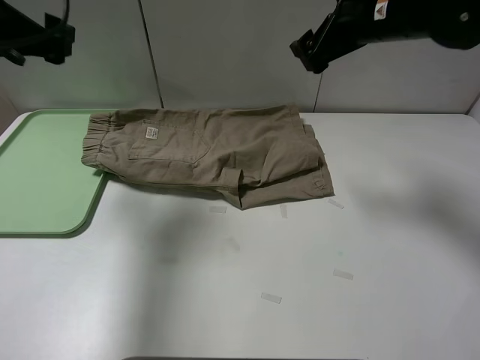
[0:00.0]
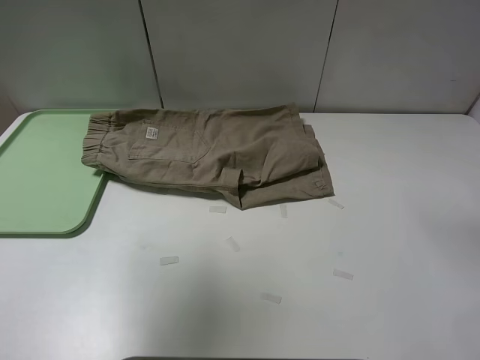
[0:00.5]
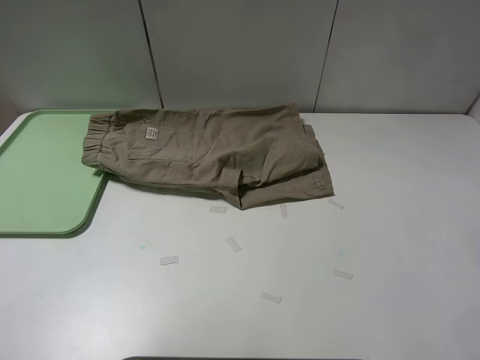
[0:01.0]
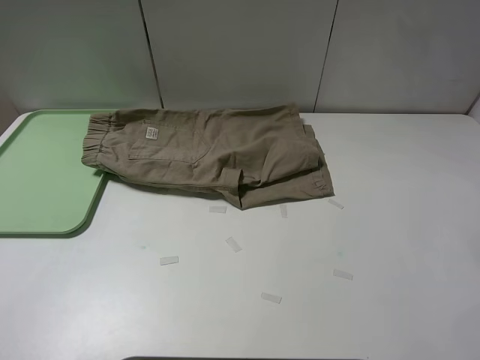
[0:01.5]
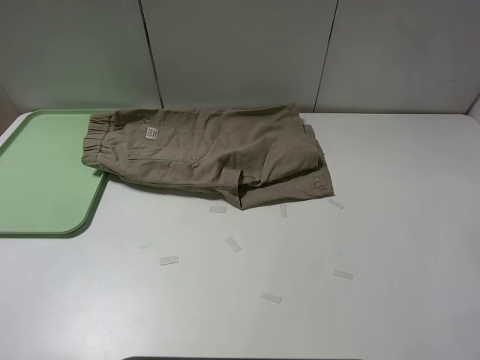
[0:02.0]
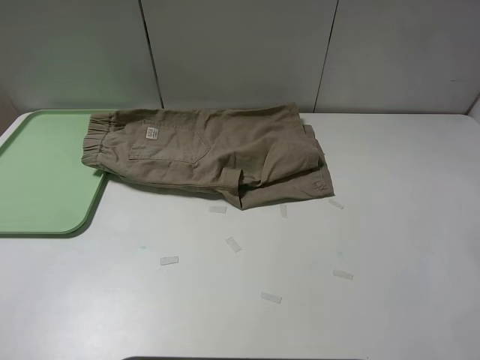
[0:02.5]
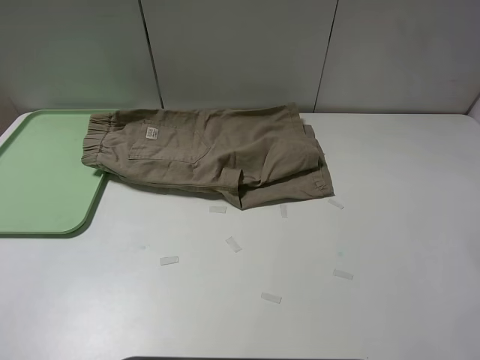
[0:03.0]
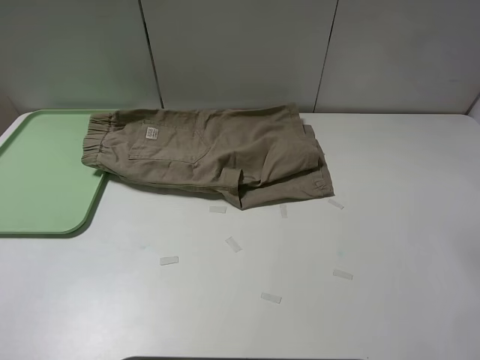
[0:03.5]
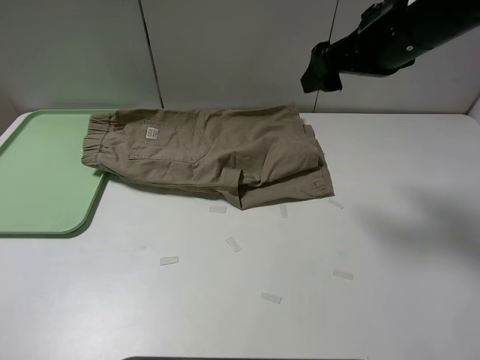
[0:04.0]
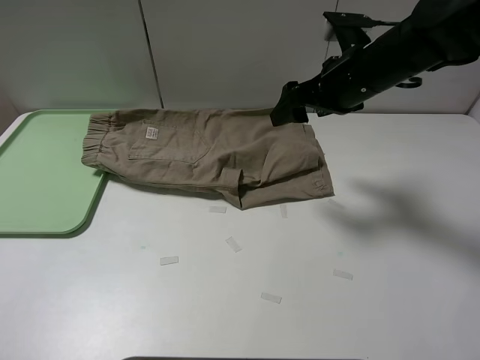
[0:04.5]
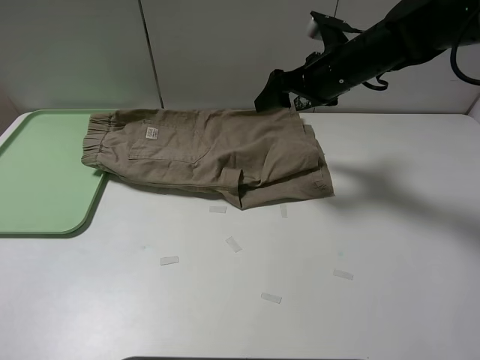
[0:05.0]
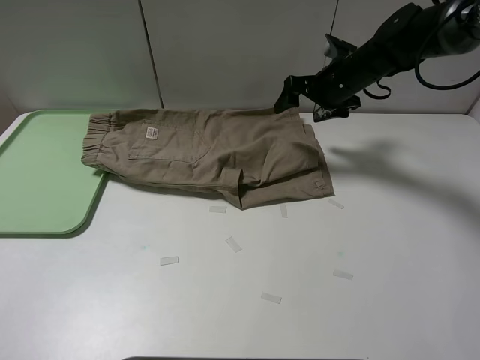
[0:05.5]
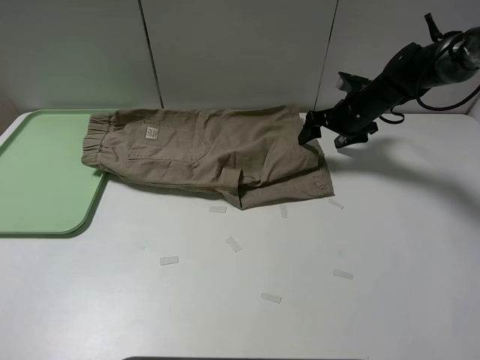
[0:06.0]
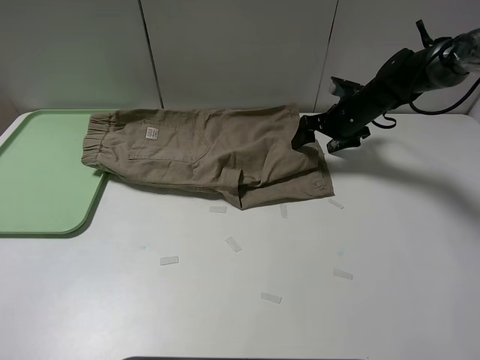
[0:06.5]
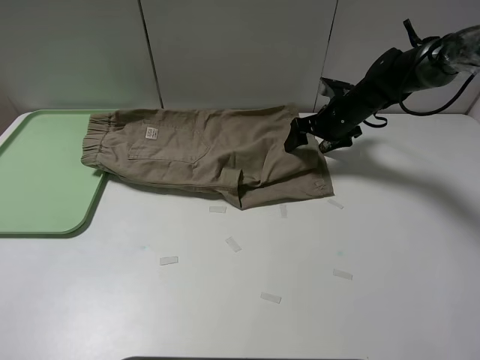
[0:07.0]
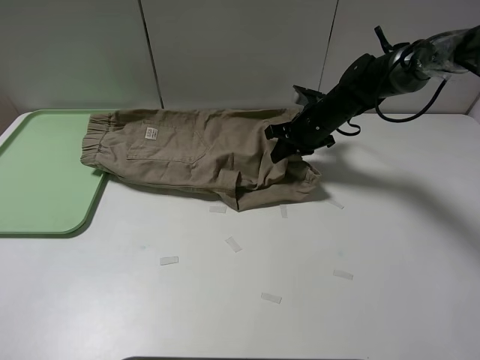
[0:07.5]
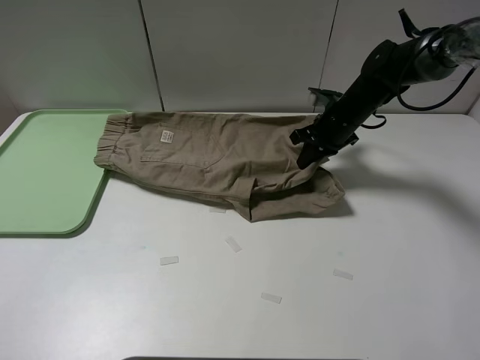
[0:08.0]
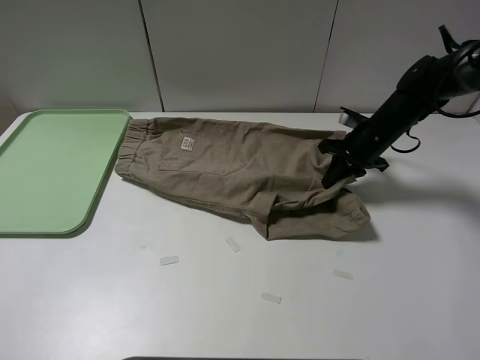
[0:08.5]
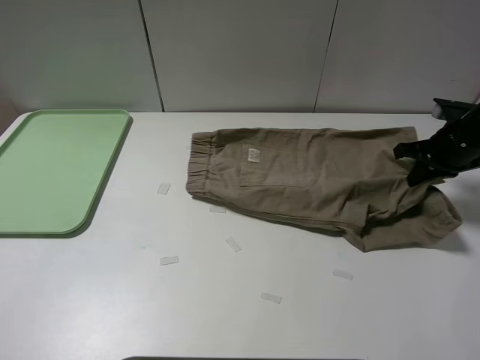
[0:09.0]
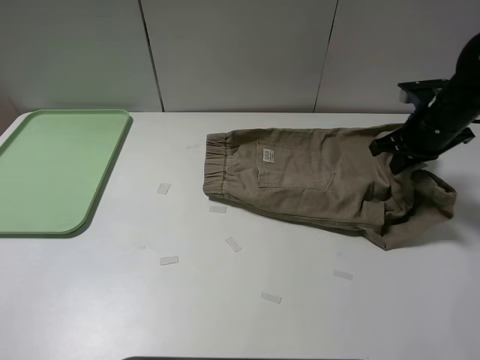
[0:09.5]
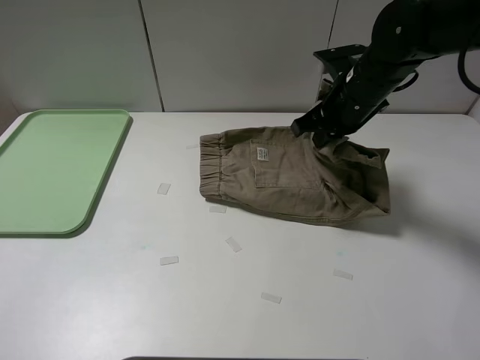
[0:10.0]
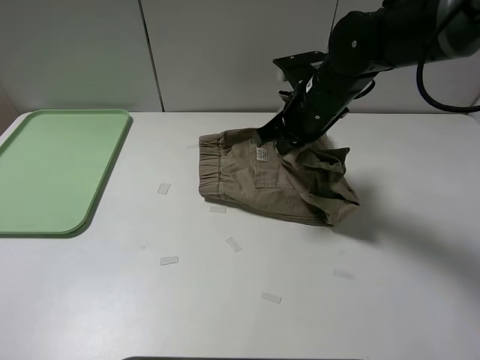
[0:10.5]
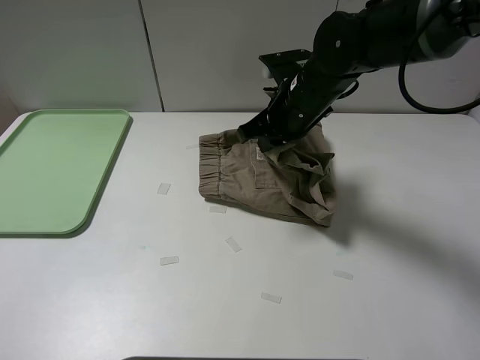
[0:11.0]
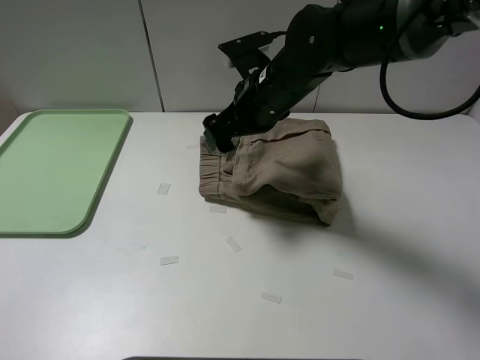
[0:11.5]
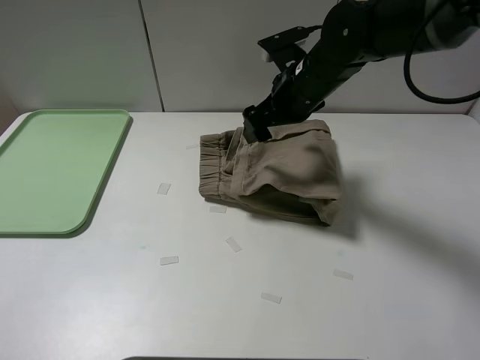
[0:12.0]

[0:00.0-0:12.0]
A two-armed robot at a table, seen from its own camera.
Task of the whole recording: fold the khaki jeans in half with two grippers, then fold them in half again, and use the left claw to place the folded fold khaki jeans on the tray.
Step, 0:00.0 to 0:07.0: Grasp the khaki trousers with the right gripper.
Step, 0:07.5 to 0:11.5: Fold the khaki trousers from right to left with the right gripper.
0:00.0 to 0:02.0: The left gripper shifts some 25 cm backward. The right gripper travels upward and backward by some 20 cm.
0:02.0 to 0:04.0: The right gripper travels downward and forward by about 15 cm.
0:04.0 to 0:06.0: The right gripper shifts approximately 25 cm downward and forward.
0:06.0 to 0:08.0: The right gripper closes up.
0:08.0 to 0:10.0: The right gripper goes about 10 cm upward and backward, and moves approximately 15 cm to the right and comes back.
0:10.0 to 0:12.0: The right gripper opens.

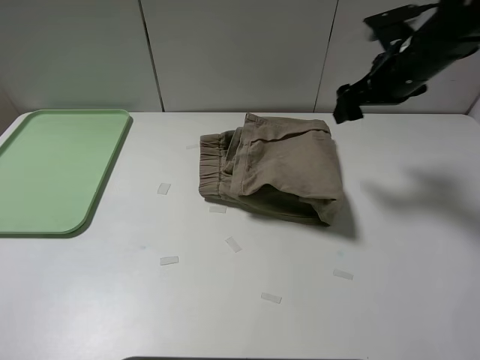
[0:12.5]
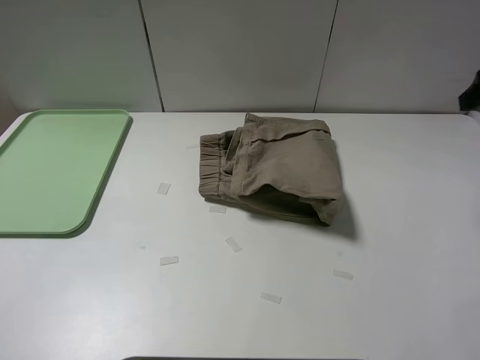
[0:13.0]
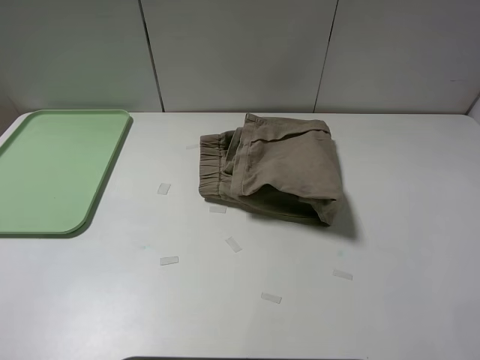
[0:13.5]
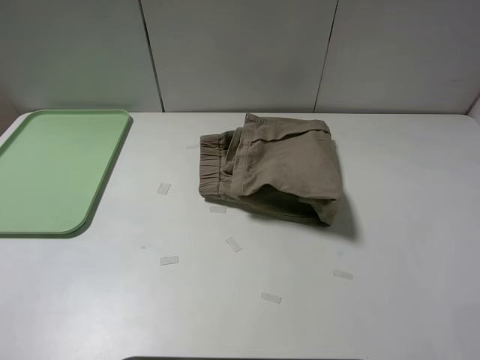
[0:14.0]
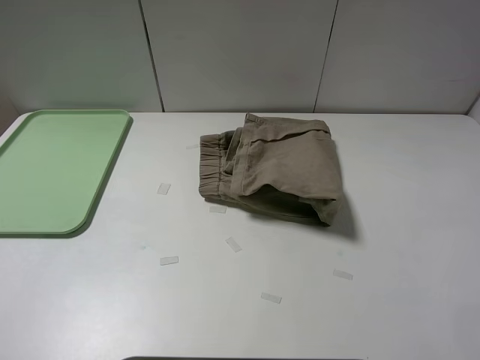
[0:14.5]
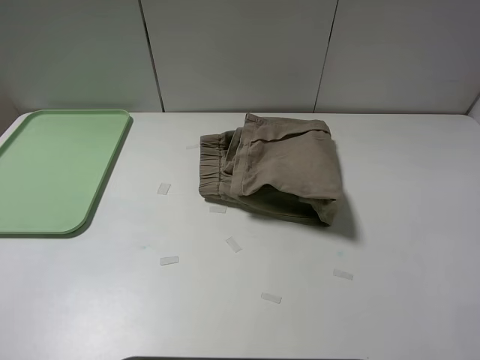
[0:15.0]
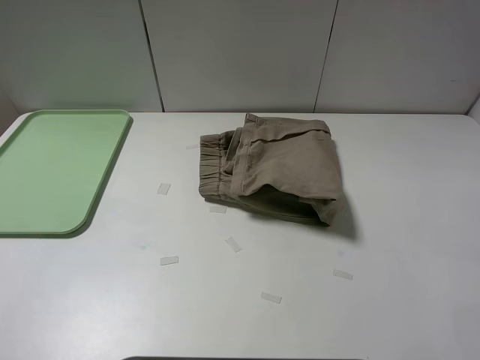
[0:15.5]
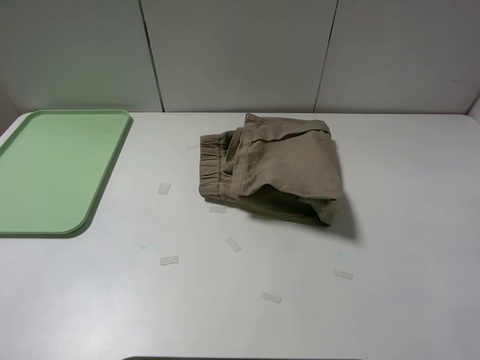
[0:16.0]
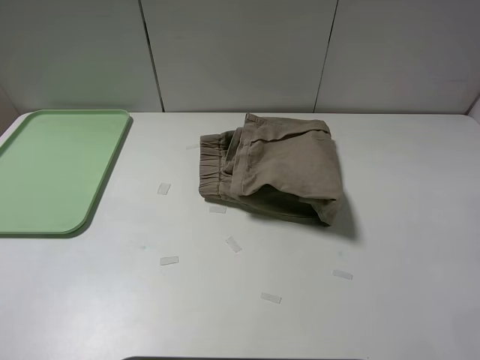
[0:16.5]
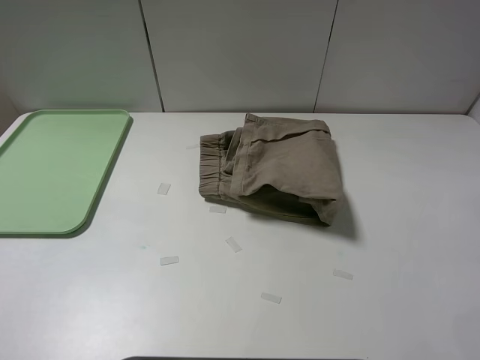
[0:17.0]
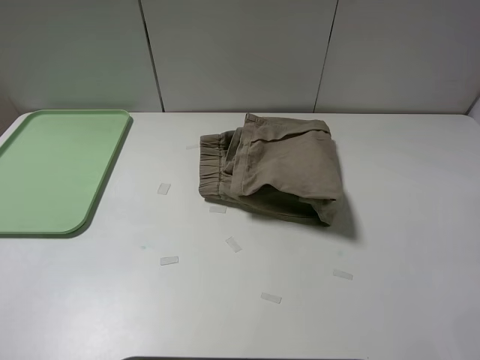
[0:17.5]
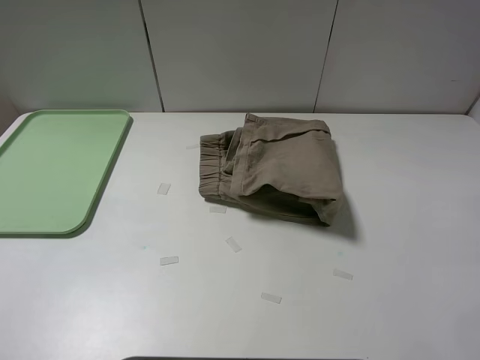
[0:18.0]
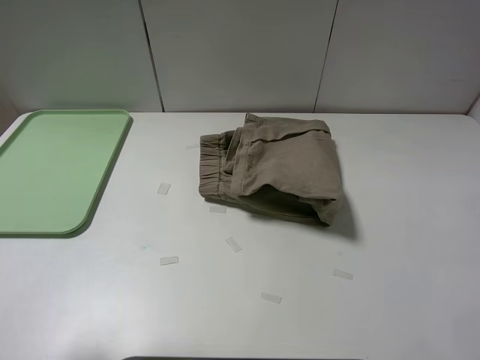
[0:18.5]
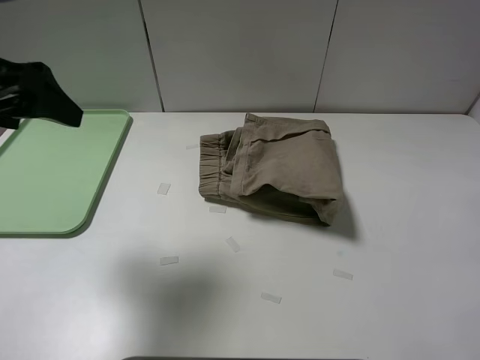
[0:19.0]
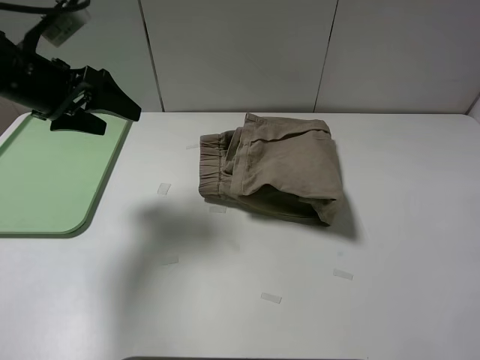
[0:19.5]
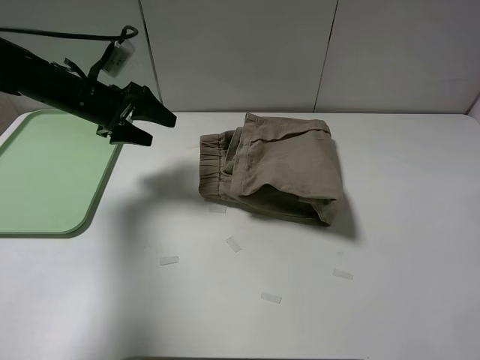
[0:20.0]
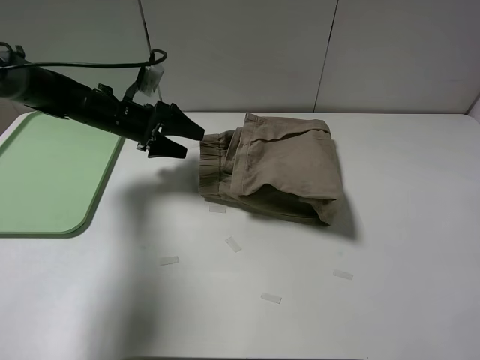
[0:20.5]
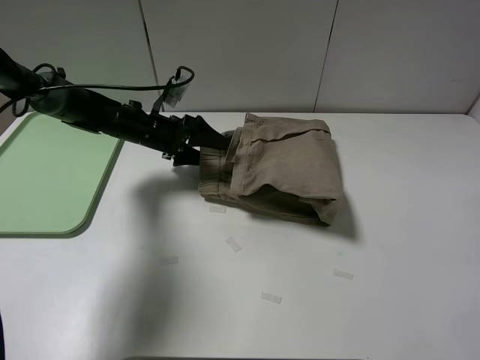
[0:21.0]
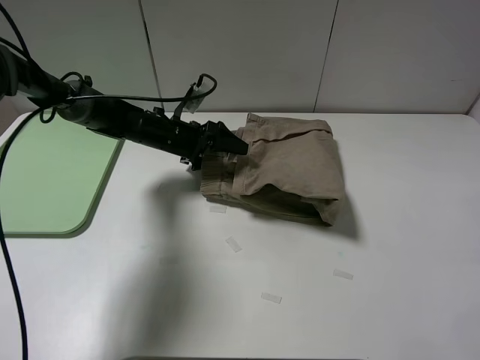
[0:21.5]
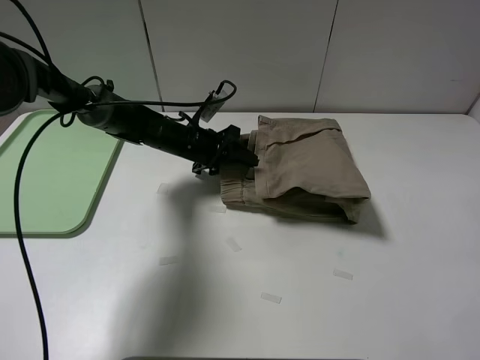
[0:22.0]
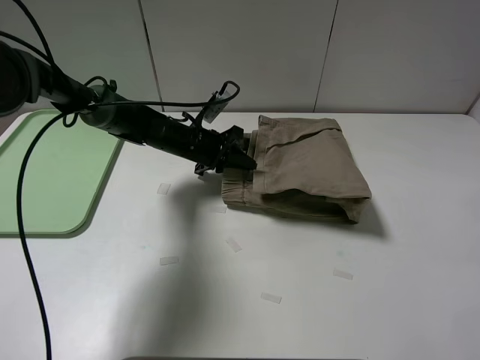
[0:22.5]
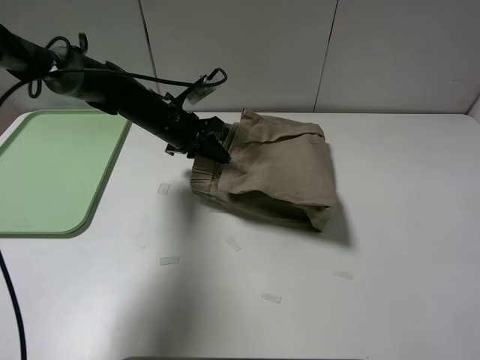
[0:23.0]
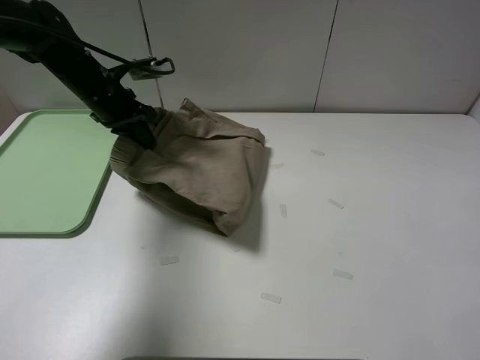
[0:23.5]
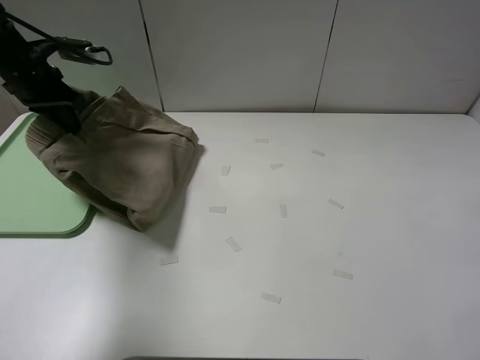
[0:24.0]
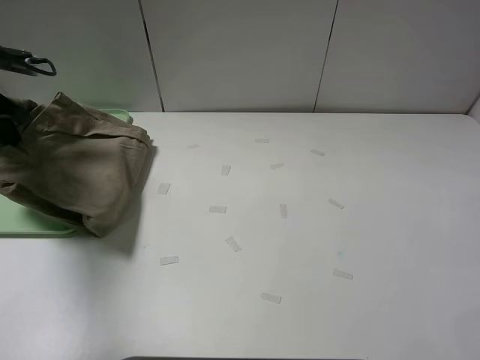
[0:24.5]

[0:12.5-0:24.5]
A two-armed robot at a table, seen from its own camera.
Task of the whole recording: fold the khaki jeans in half with two grippers, then fold them in half again, and use the left claw to place the folded fold khaki jeans on the tray.
Step, 0:12.5 to 0:22.0: Grasp the khaki trousers with the left gripper.
0:12.5 to 0:14.5: The right gripper moves backward, approximately 35 cm.
0:18.5 to 0:20.5: The left gripper is displaced forward and downward by about 40 cm.
0:20.5 to 0:22.5: The left gripper travels to the right by about 10 cm, and closes up.
0:22.5 to 0:24.5: The left gripper heads to the left and upward, covering about 35 cm.

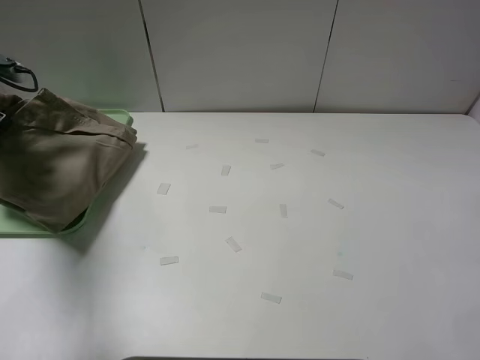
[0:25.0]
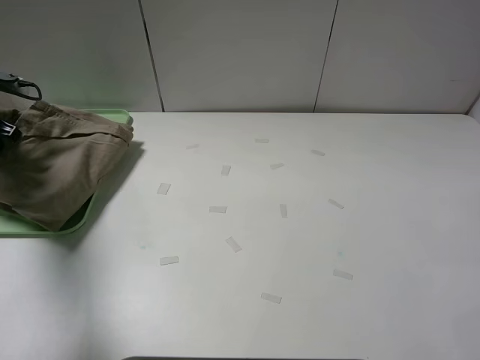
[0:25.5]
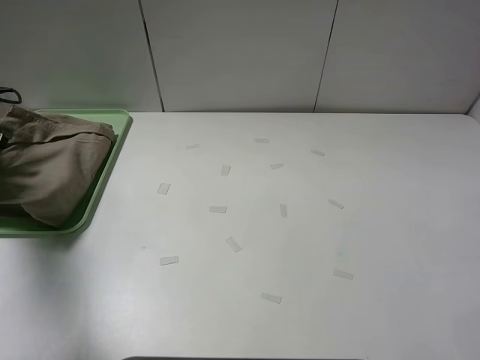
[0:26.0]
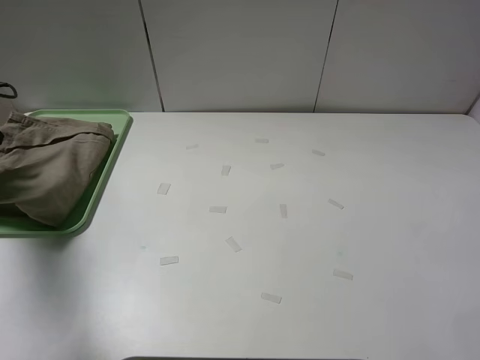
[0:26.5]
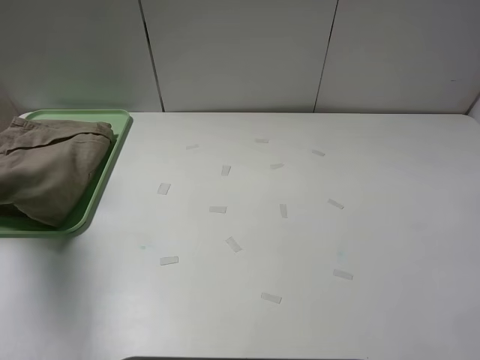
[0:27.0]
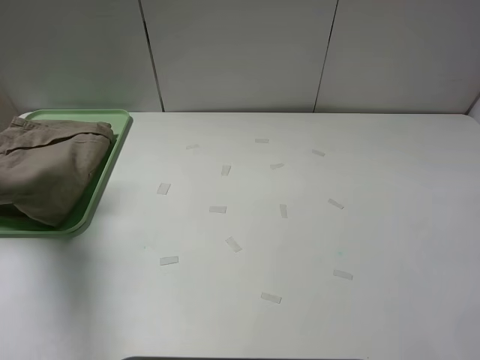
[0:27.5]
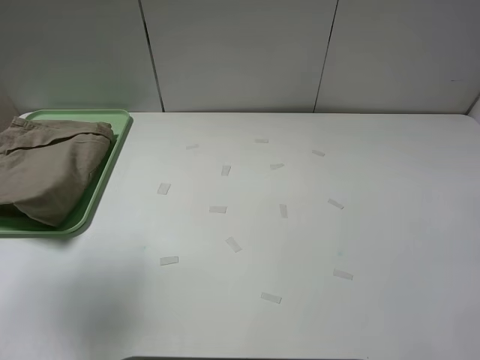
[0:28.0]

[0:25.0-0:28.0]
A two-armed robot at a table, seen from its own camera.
Task of the whole recording: fold the khaki jeans in half with two grippers, then fold them in half again, and use the left claw to place the folded fold khaki jeans on the tray.
0:25.0 to 0:26.5: The left gripper opens.
0:26.5 to 0:28.0: The left gripper moves upward, backward and to the right, some 30 cm.
